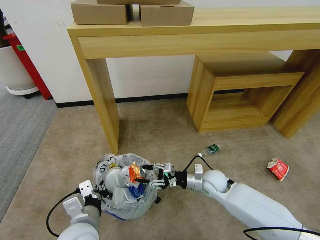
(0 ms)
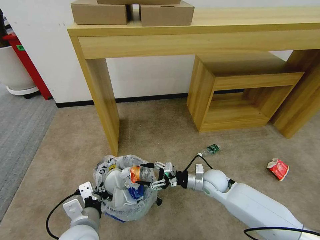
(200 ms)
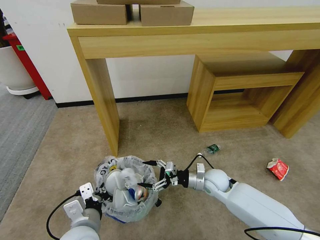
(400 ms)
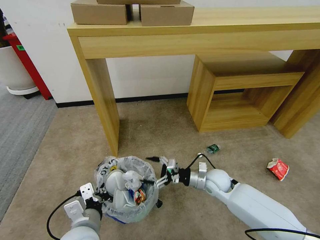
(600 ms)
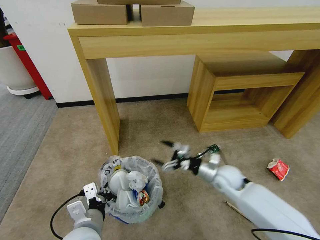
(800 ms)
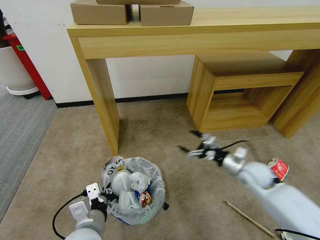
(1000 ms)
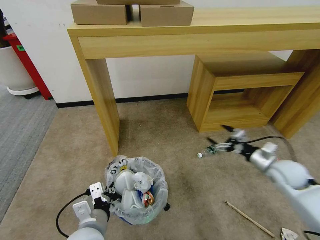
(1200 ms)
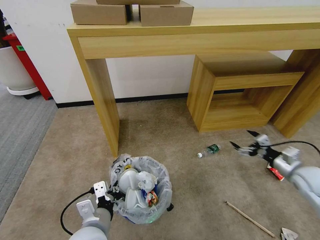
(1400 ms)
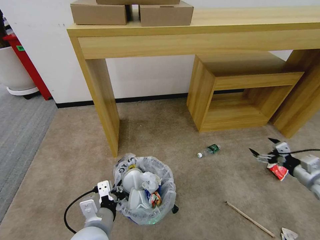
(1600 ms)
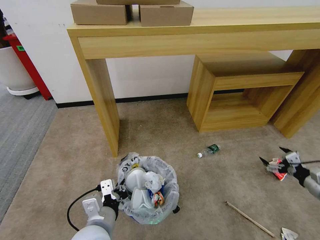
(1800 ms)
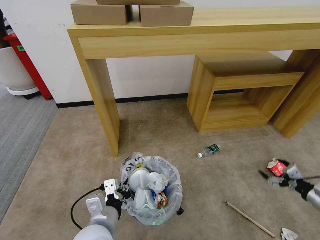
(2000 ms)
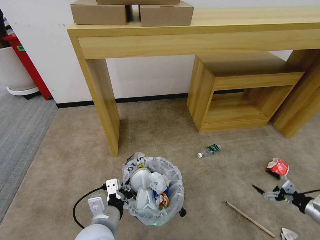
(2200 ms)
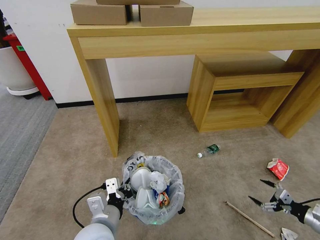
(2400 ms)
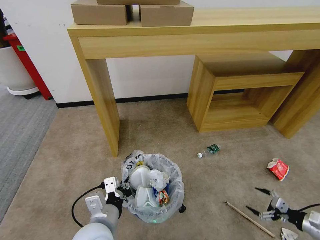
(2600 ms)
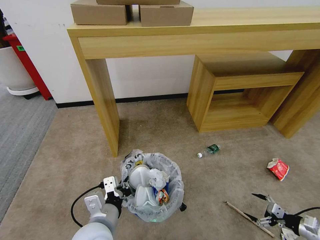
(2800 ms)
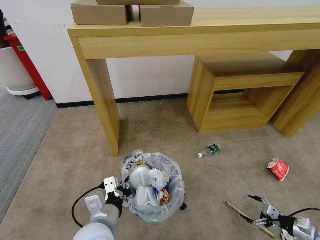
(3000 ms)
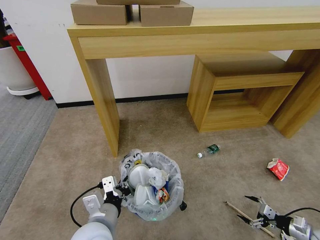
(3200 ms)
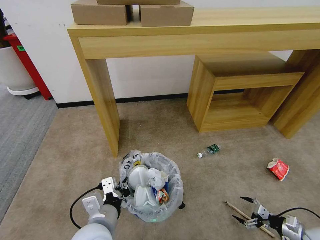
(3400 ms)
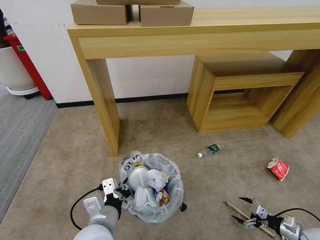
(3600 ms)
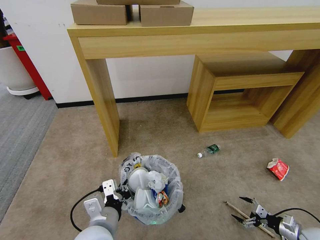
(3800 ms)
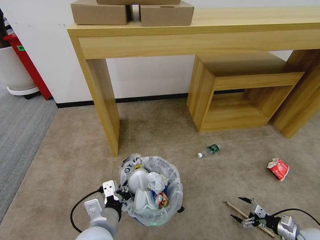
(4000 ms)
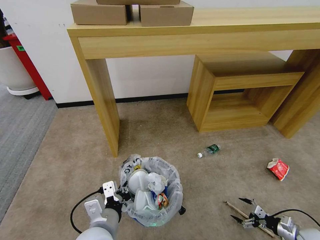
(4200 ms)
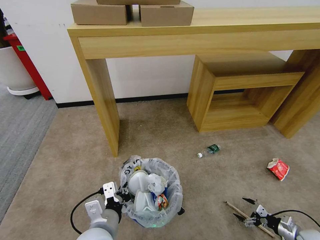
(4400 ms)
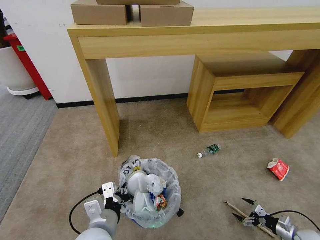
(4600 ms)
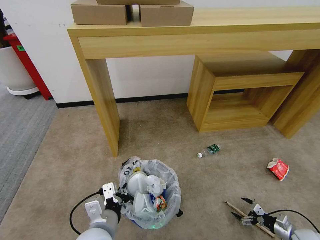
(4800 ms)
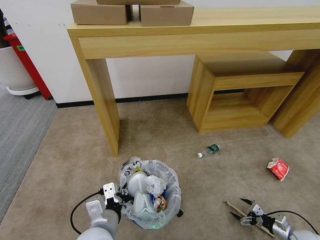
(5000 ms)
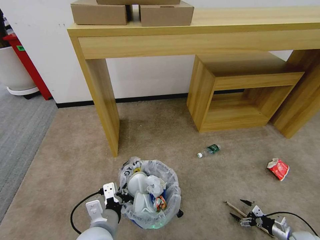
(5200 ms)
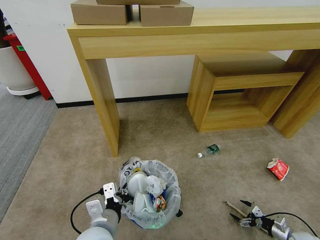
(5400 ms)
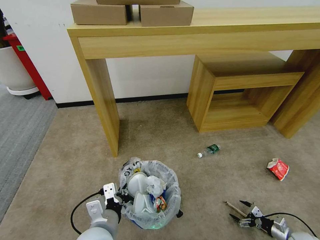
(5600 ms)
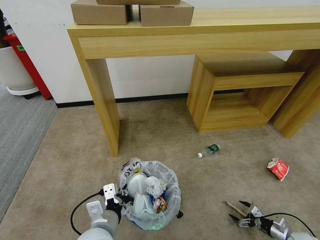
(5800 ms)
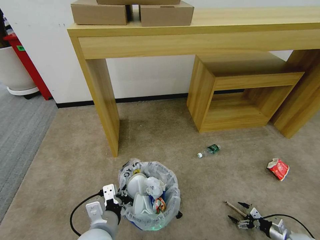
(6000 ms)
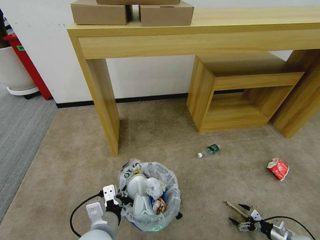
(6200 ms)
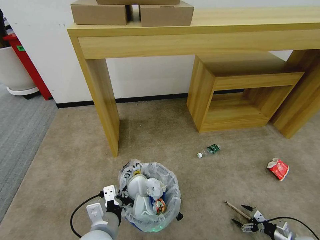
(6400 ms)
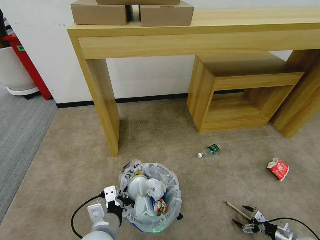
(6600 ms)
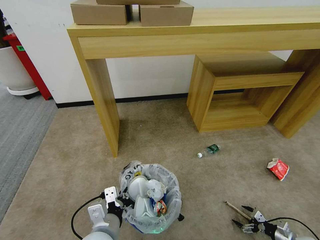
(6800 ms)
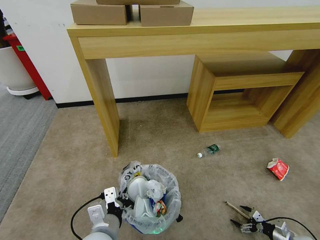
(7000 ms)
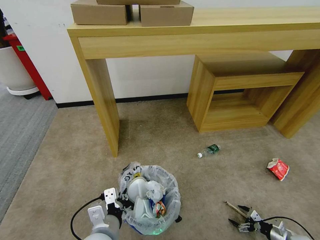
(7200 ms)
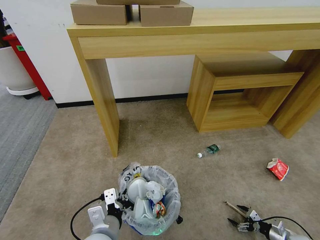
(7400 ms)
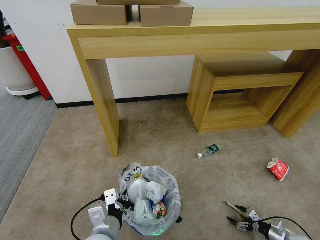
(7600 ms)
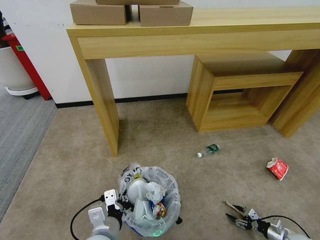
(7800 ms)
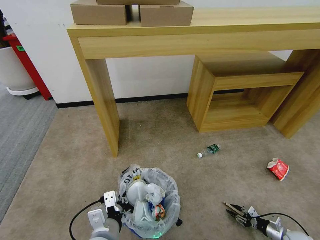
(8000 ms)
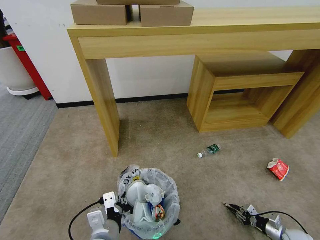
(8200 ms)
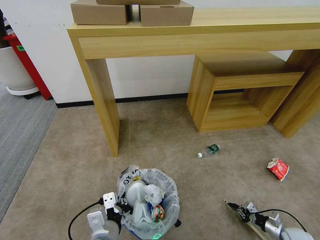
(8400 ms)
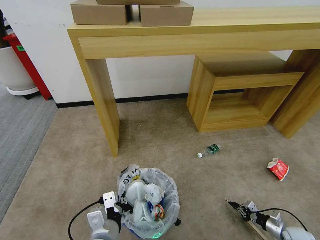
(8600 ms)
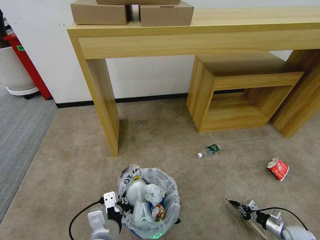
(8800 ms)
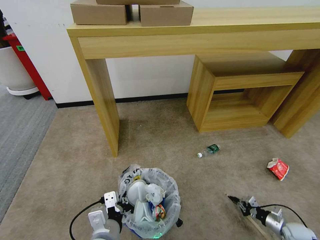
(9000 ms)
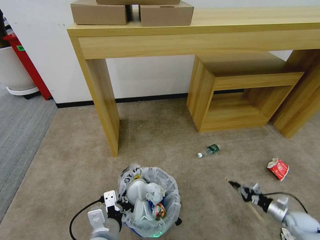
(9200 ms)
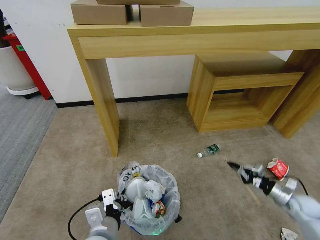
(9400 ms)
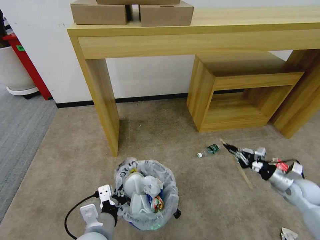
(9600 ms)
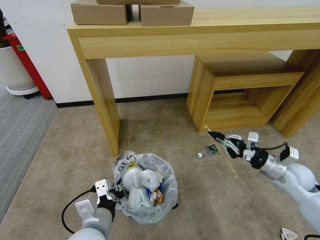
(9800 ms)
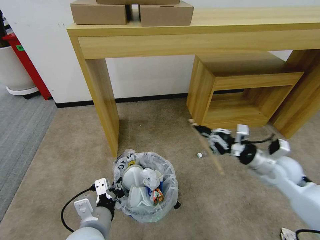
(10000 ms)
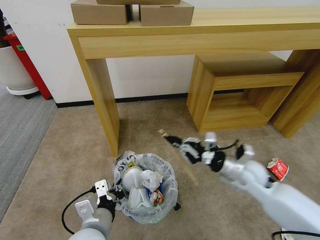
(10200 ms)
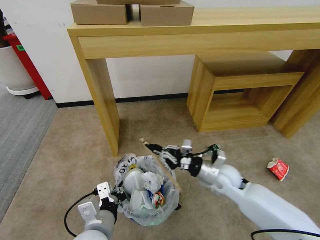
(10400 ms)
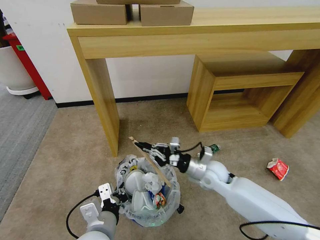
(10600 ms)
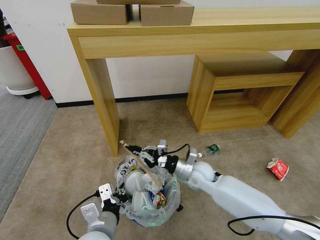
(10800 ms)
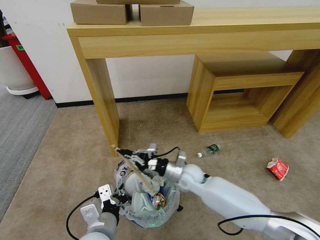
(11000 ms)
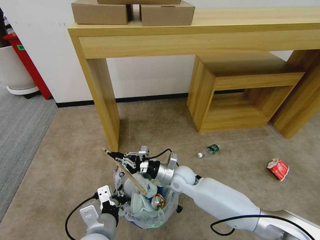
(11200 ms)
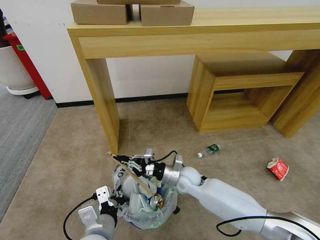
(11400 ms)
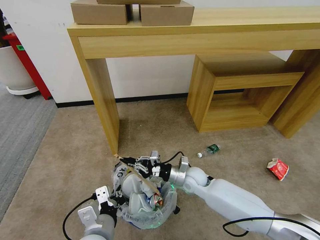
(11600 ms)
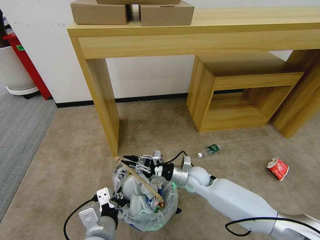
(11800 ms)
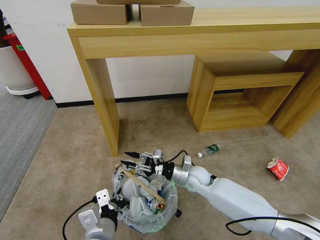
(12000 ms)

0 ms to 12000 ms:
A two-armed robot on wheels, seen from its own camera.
Task of the whole recording: Pick up the trash bin and place the garbage on the floor into it.
0 ms to 1600 ms: The right gripper is displaced to the right by about 30 cm, and opens its fingers.
1600 ms to 3000 ms: The right gripper heads downward and backward, covering some 20 cm.
3000 ms to 4400 ms: The right gripper heads downward, covering some 5 cm.
4400 ms to 6000 ms: The right gripper shifts by some 5 cm.
6000 ms to 7600 ms: The grippers move only a little.
7600 ms to 9000 ms: The right gripper closes up.
9000 ms to 10400 ms: The right gripper goes roughly 40 cm to the left and upward.
10400 ms to 12000 ms: The right gripper goes roughly 10 cm to the left and downward, and opens up.

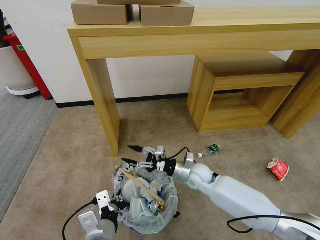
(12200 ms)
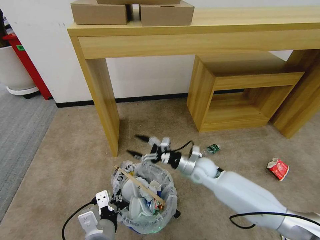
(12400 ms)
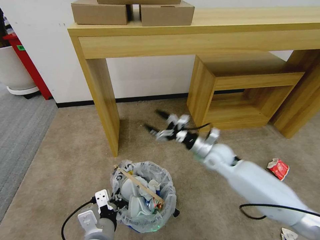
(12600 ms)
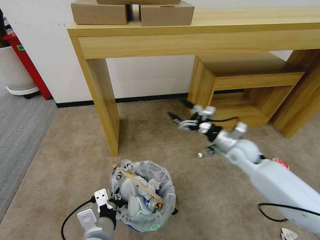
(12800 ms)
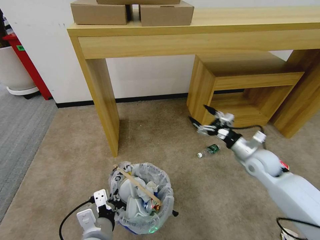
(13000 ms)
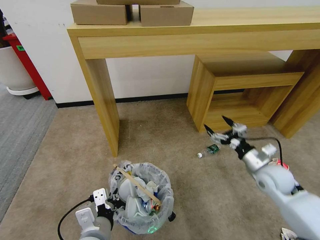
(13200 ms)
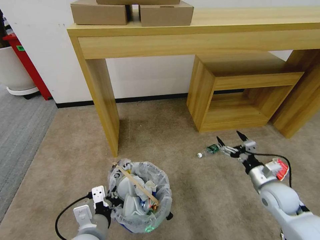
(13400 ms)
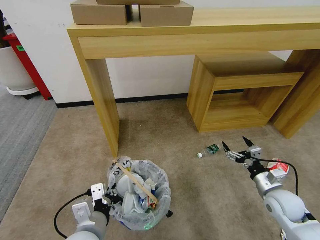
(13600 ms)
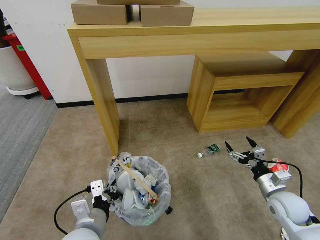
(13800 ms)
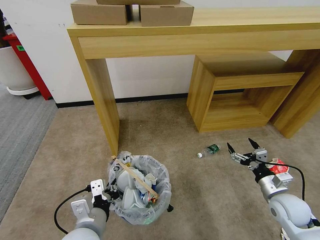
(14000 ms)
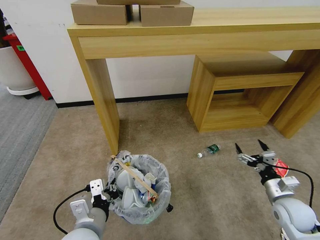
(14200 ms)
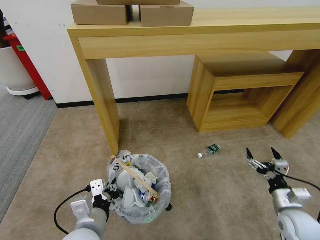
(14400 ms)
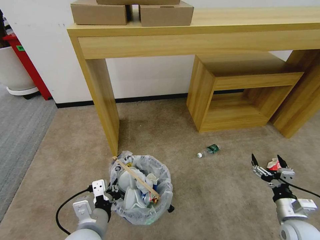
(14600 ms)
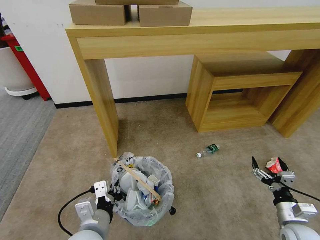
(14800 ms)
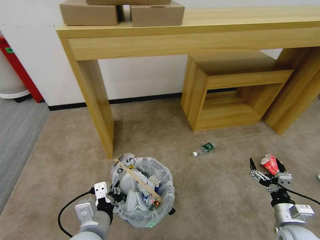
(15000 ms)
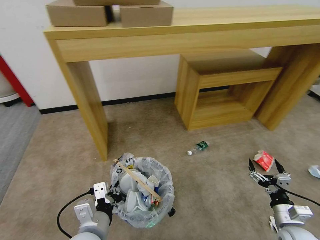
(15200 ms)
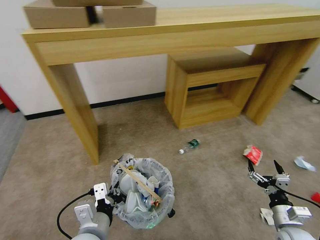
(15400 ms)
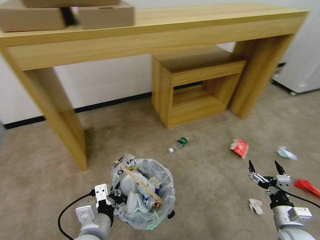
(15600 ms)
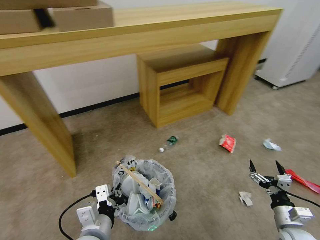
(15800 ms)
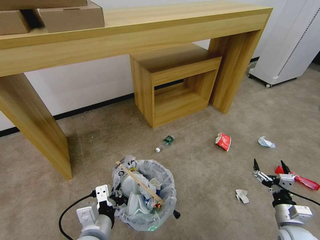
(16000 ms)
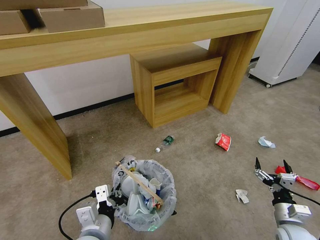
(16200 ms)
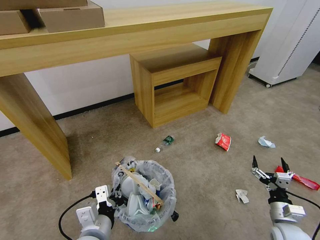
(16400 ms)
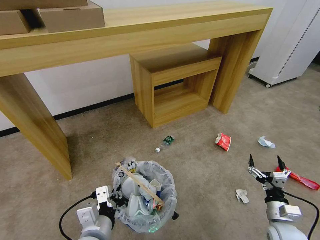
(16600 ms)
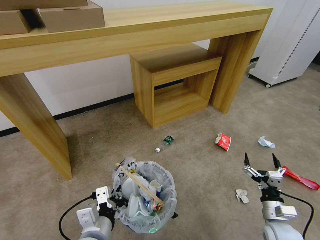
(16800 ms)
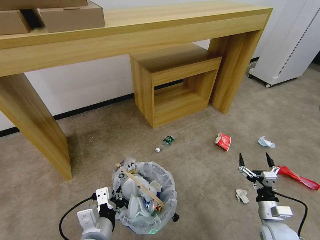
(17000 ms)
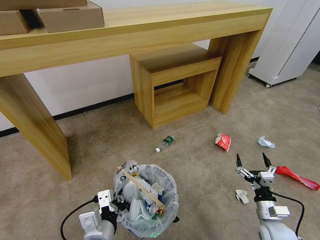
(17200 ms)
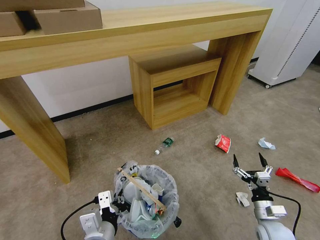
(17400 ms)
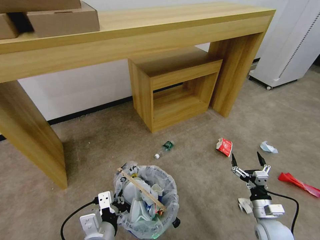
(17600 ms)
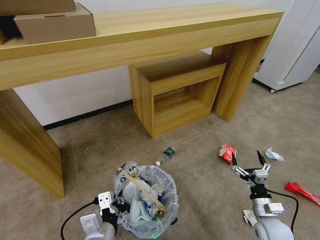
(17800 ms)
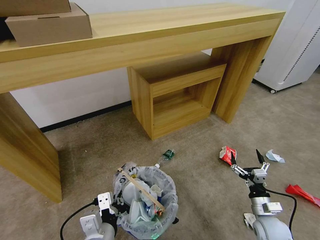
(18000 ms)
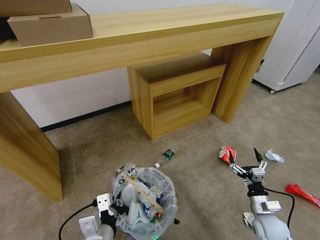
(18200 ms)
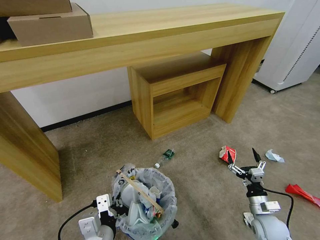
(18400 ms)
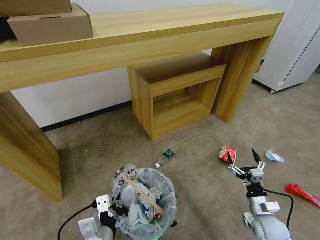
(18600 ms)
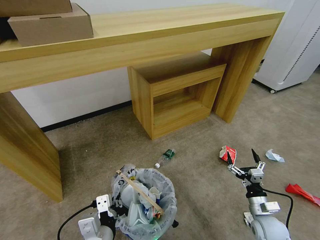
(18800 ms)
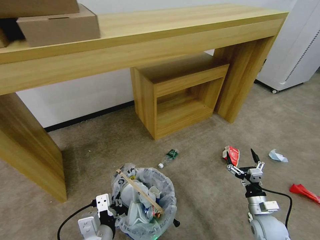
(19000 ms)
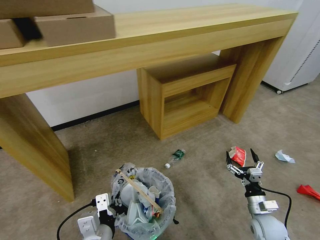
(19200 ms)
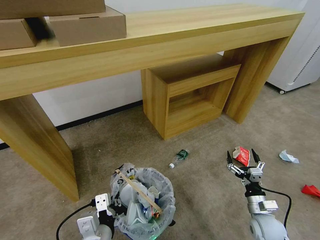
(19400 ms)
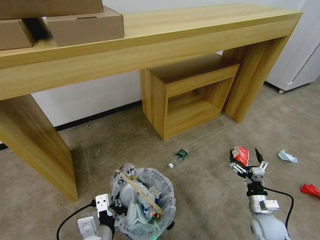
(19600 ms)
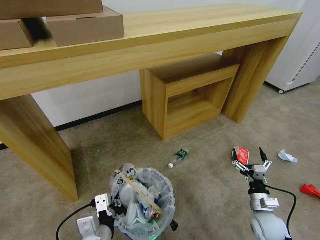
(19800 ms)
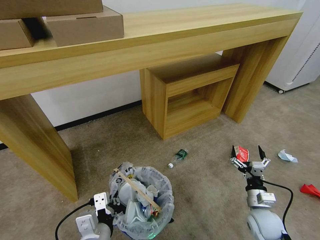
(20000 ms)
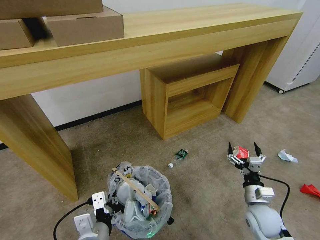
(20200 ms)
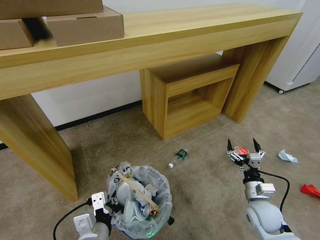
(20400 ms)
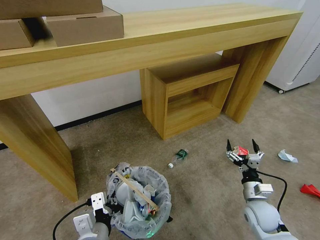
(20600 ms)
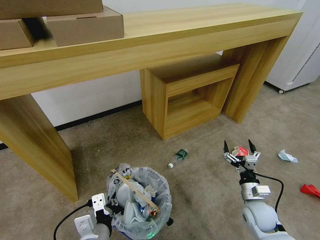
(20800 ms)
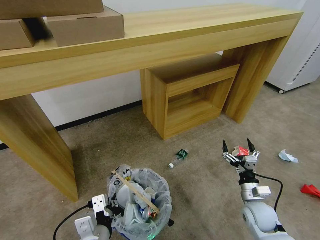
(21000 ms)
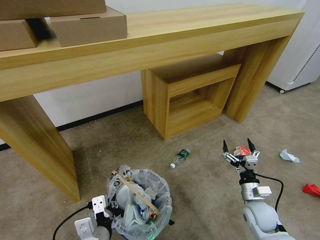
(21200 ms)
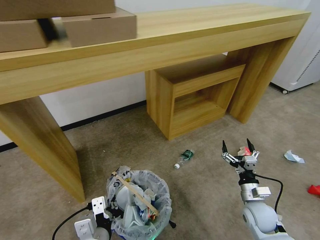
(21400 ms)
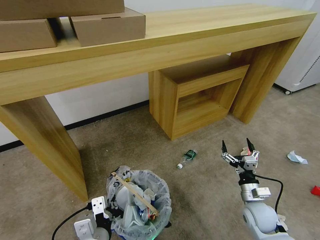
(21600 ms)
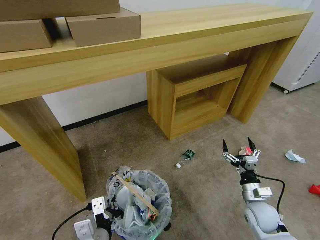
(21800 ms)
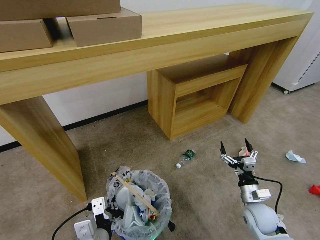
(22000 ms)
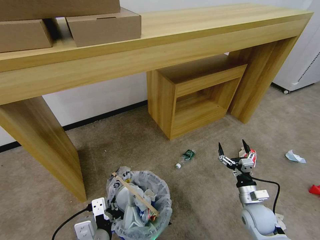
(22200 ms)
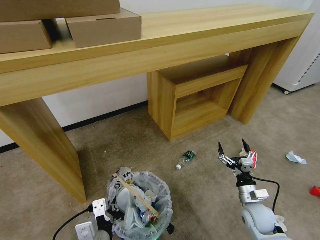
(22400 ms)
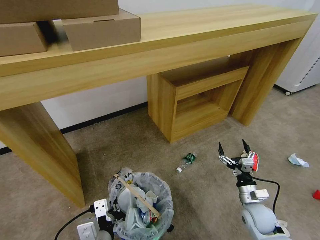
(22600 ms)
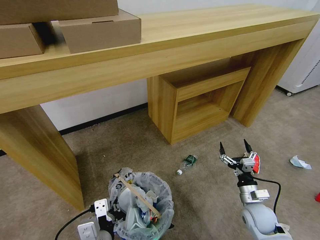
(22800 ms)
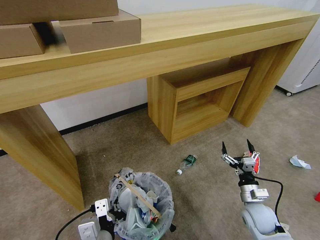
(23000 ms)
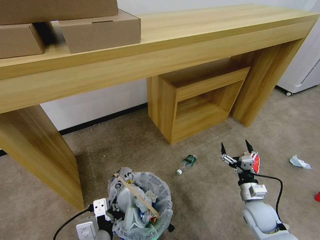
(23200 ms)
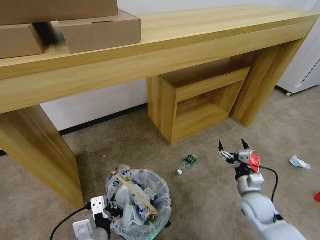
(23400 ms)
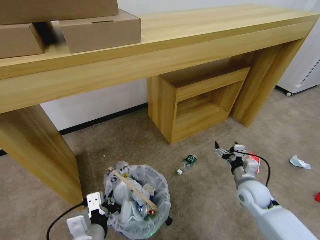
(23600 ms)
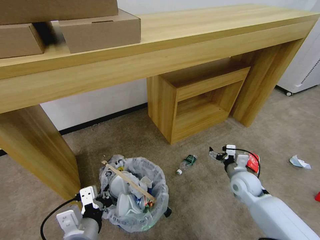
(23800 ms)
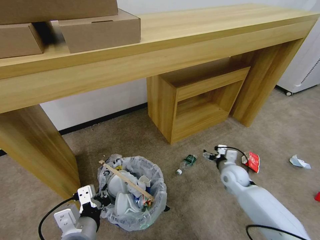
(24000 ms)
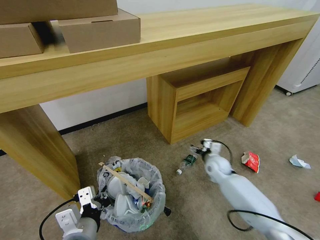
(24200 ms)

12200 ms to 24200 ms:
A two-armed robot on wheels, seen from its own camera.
Task of the whole recording: Pick up the trash bin and place the garbage on the floor into it.
12200 ms to 13800 ms: The right gripper travels to the right and backward by some 30 cm.
13800 ms to 15200 ms: The right gripper goes roughly 10 cm backward.
19800 ms to 21200 ms: The grippers make only small movements.
22600 ms to 24200 ms: The right gripper is displaced forward and to the left by about 20 cm. Meanwhile the left gripper moves roughly 5 cm.
